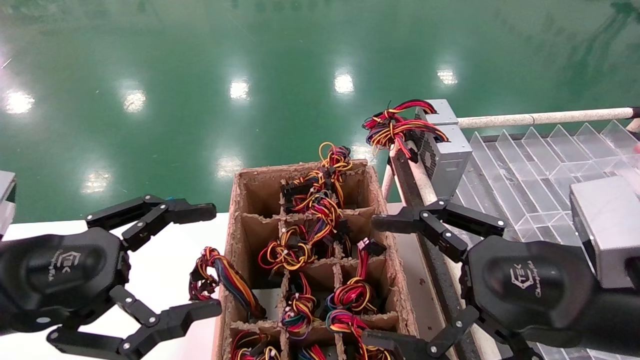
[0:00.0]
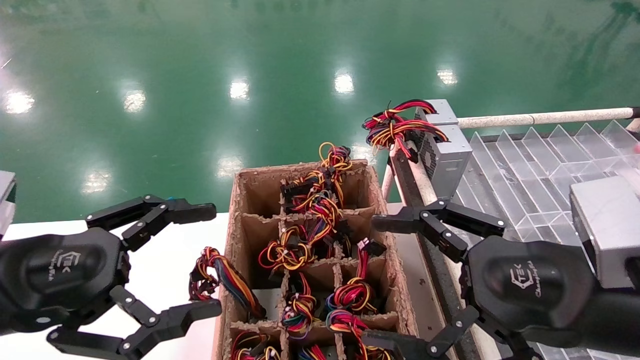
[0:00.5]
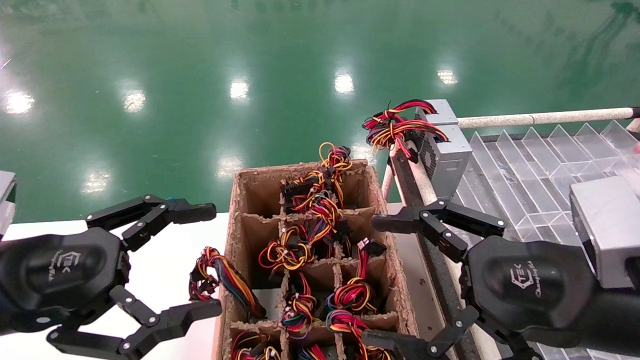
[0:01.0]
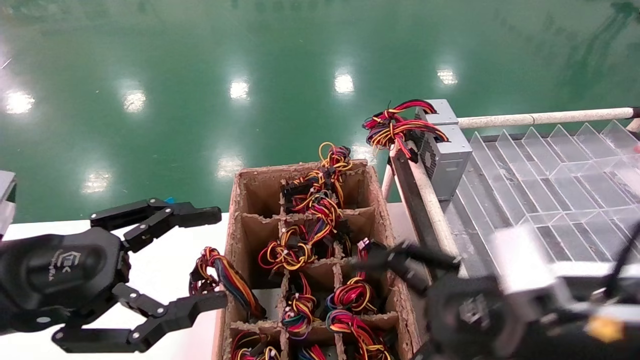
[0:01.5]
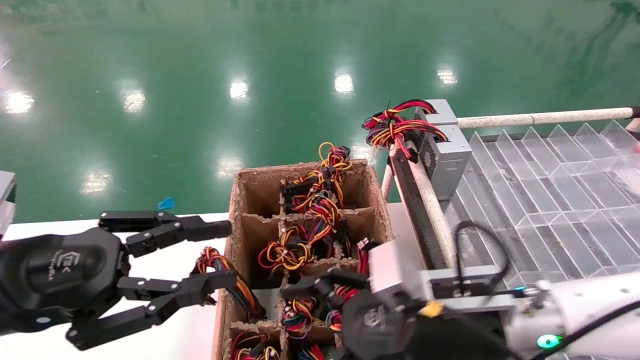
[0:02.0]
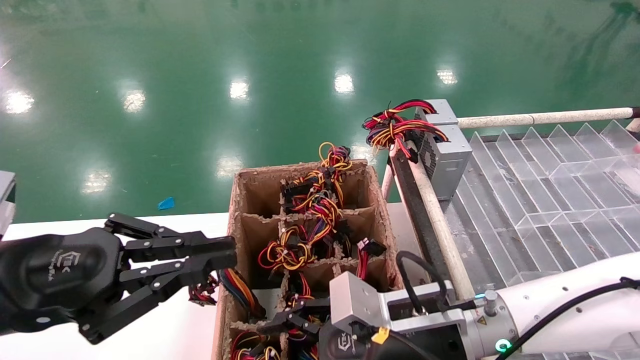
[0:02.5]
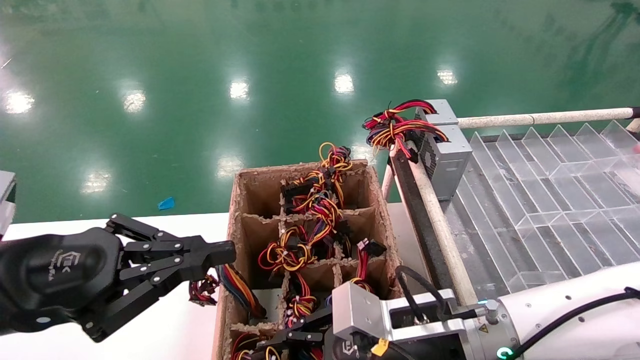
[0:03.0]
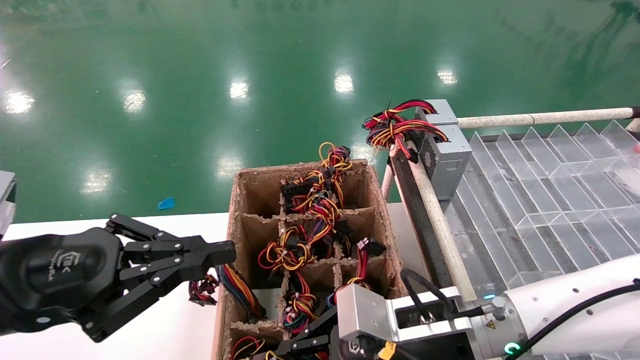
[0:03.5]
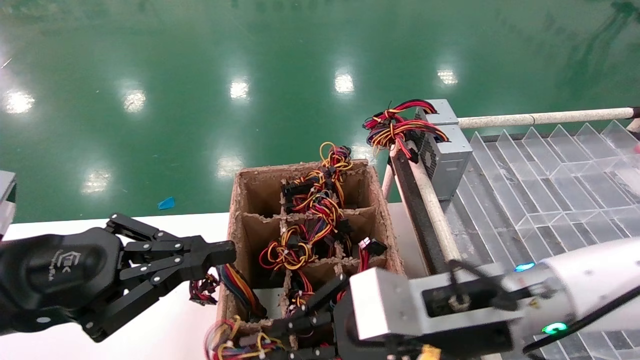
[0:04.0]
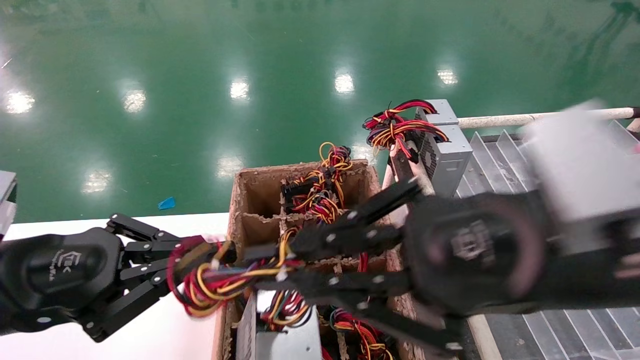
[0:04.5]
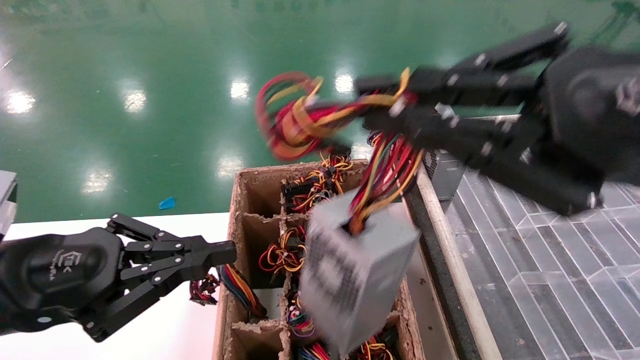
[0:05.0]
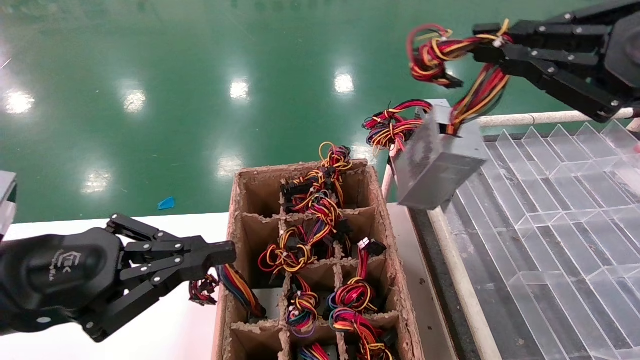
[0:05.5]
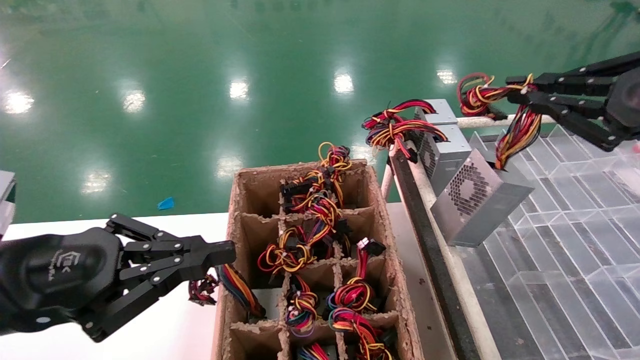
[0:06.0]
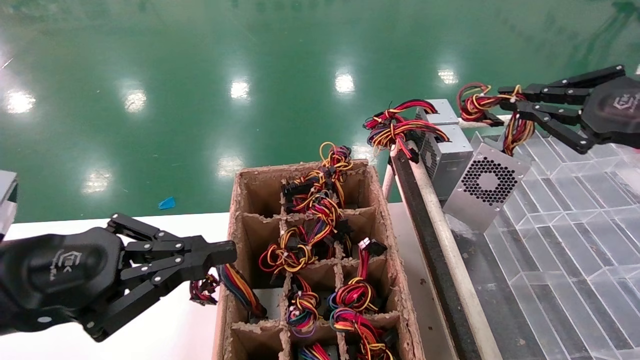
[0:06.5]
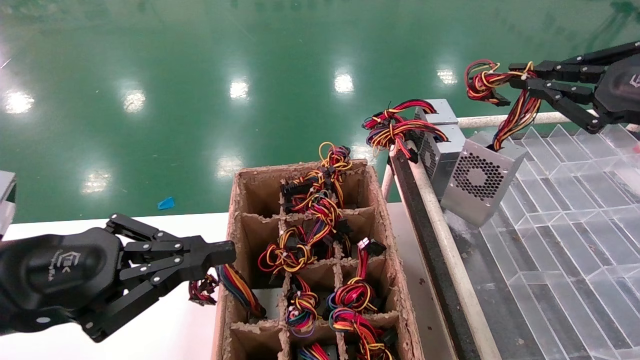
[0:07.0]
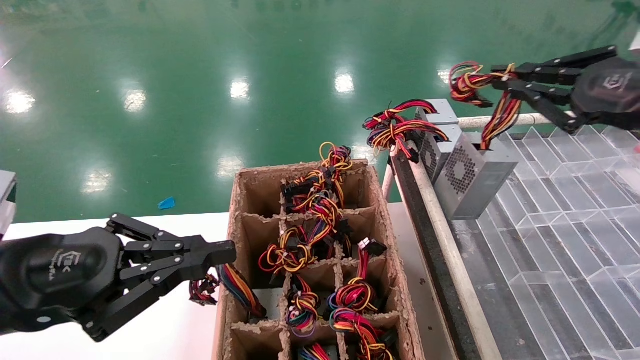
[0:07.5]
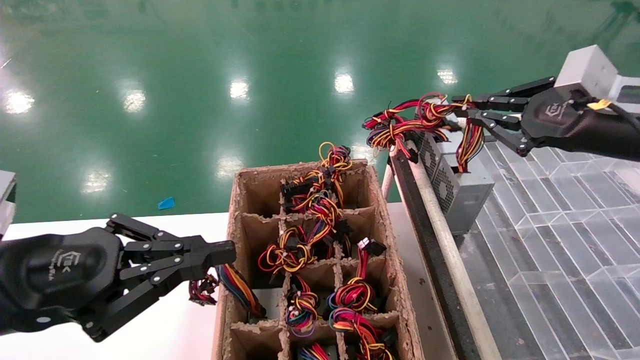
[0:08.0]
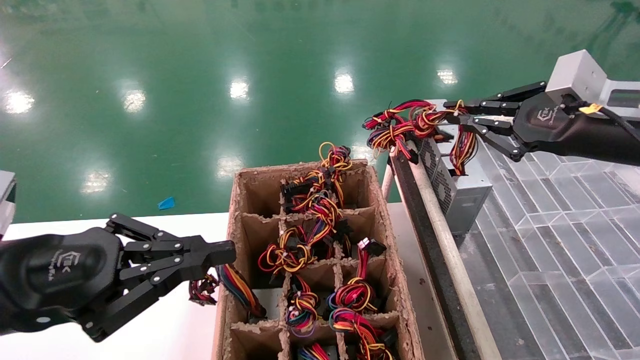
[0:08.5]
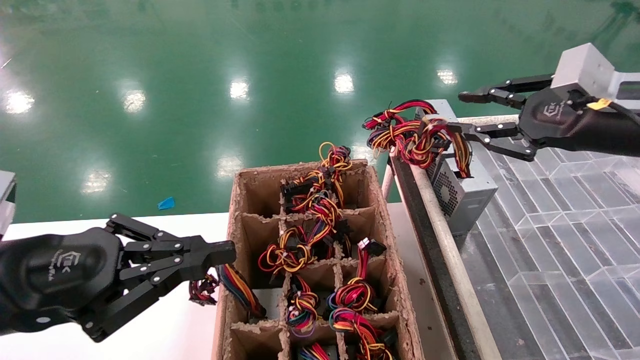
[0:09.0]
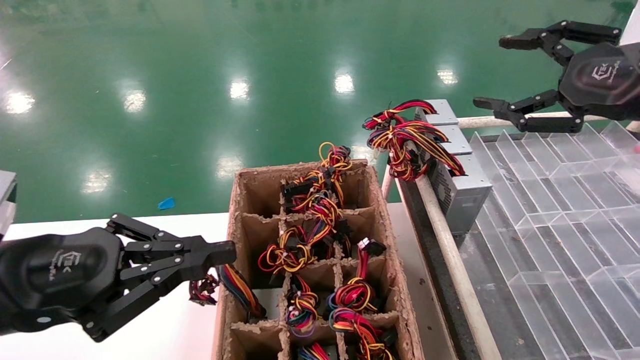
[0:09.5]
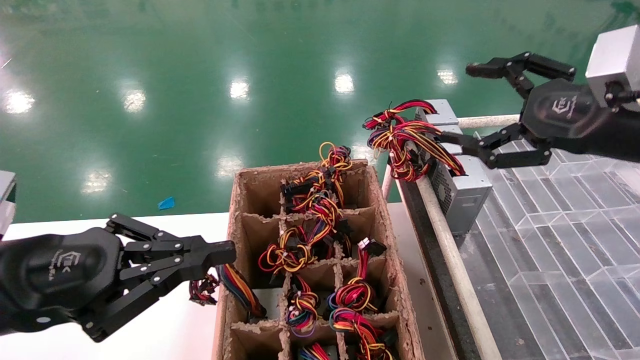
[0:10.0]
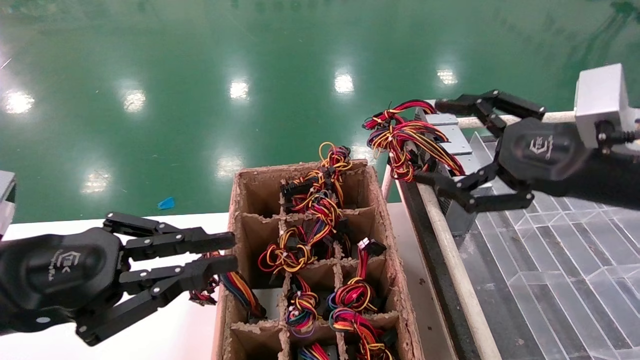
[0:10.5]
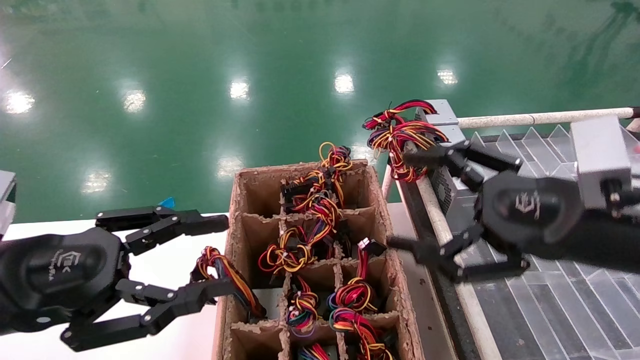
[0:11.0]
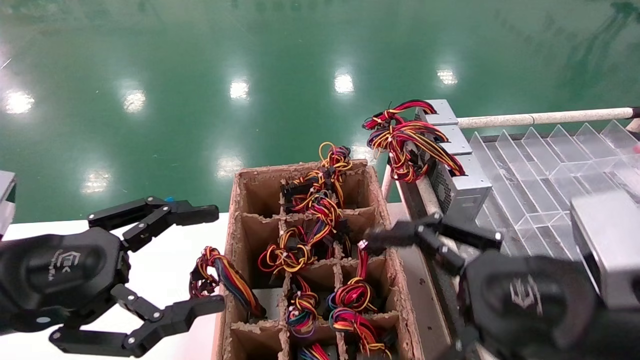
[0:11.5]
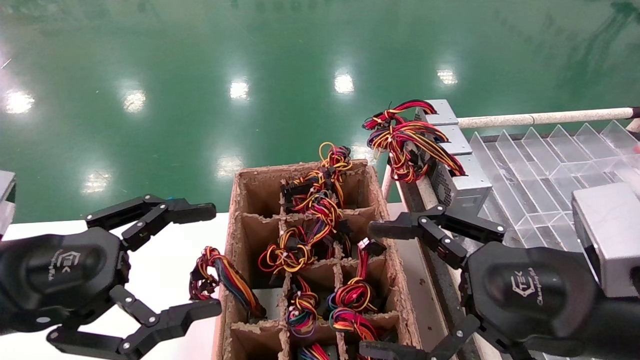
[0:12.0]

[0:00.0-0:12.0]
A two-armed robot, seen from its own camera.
Step, 0:02.0 to 0:03.5: Grab the main unit power supply from the containment box.
Step, 0:04.0 to 0:09.0: Place the main unit power supply in the designated area.
0:00.0 to 0:02.0: The left gripper closes. The right gripper shifts roughly 15 cm to the left, downward and forward.
0:02.0 to 0:04.0: The left gripper closes up, while the right gripper changes place by roughly 5 cm, and closes up.
0:04.0 to 0:06.0: The right gripper travels to the right and upward by roughly 30 cm.
0:06.0 to 0:08.0: The right gripper shifts some 10 cm forward.
0:08.0 to 0:10.0: The right gripper opens its fingers.
0:10.0 to 0:12.0: The left gripper opens. The right gripper is displaced backward, downward and to the left by some 20 cm.

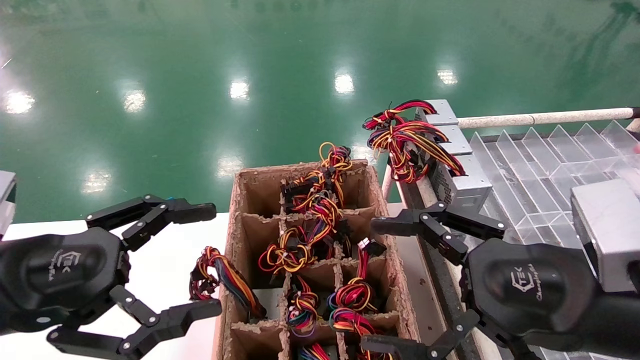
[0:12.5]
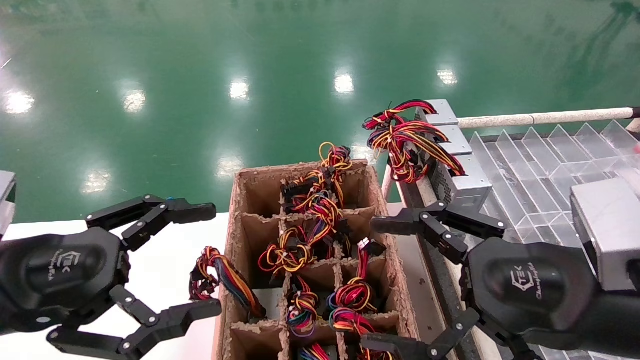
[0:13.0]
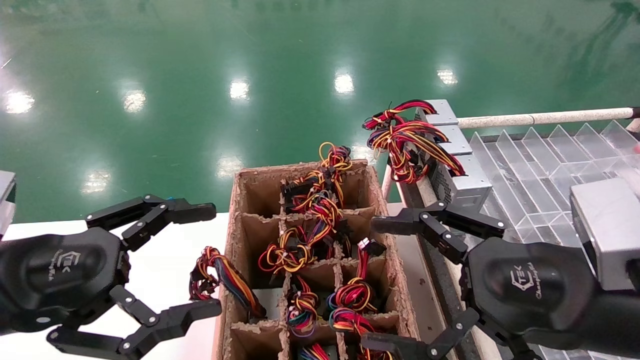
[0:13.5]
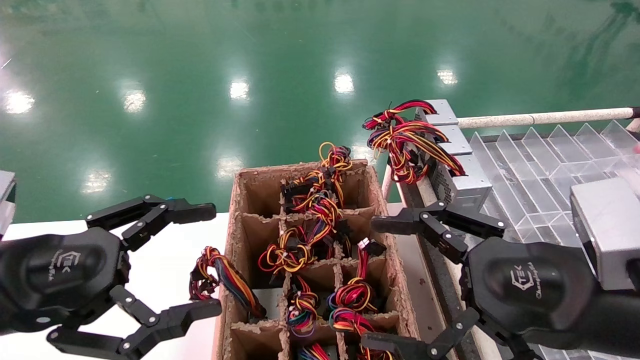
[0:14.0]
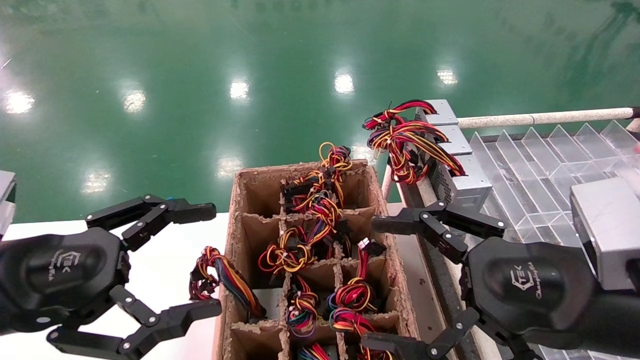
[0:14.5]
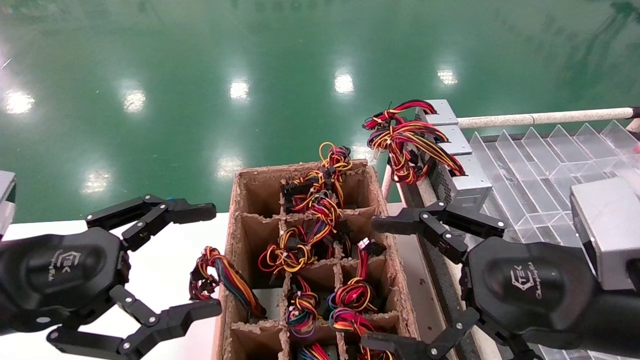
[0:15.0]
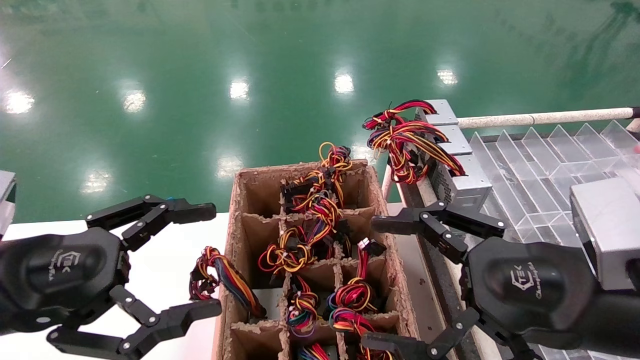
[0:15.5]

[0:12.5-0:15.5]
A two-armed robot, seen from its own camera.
0:12.5 to 0:15.5: Neither gripper changes place.
